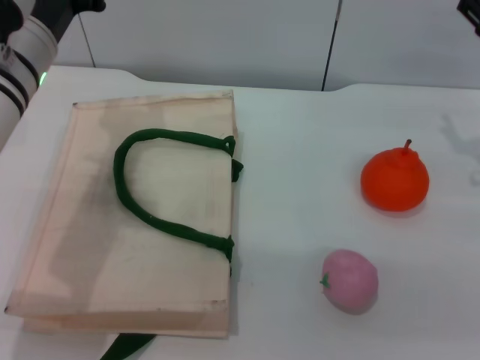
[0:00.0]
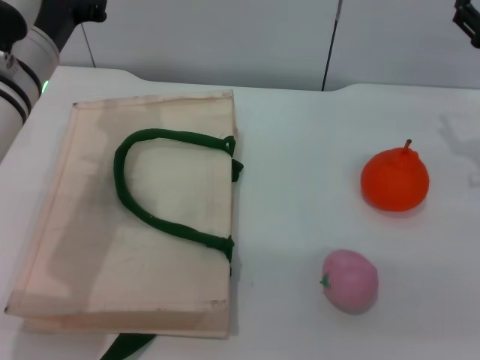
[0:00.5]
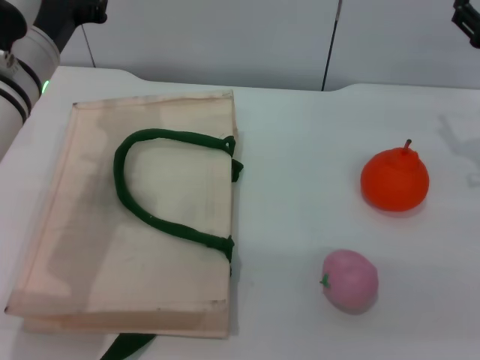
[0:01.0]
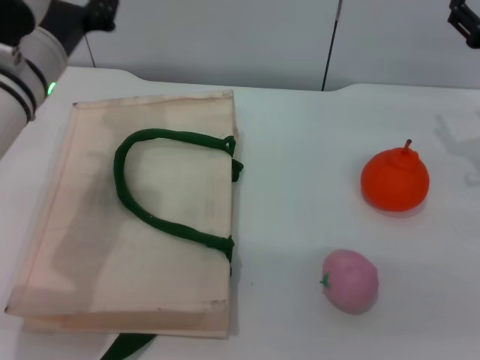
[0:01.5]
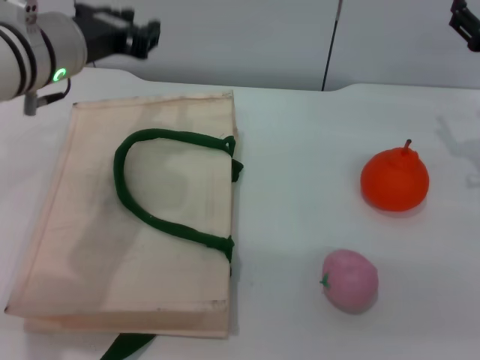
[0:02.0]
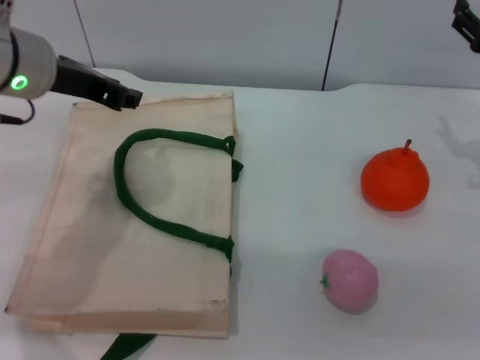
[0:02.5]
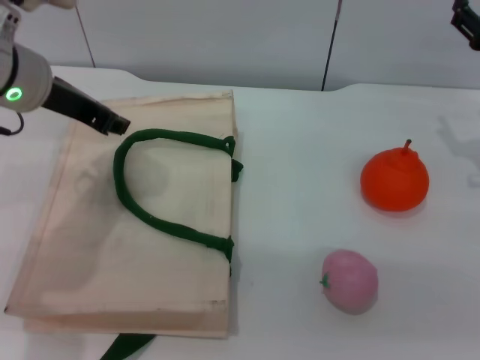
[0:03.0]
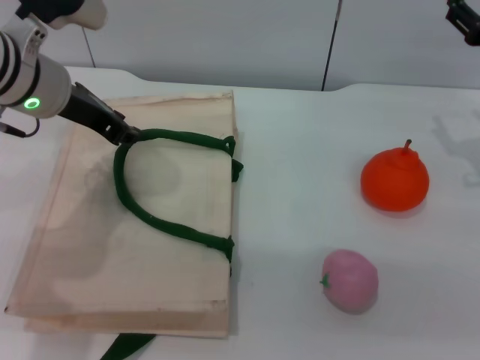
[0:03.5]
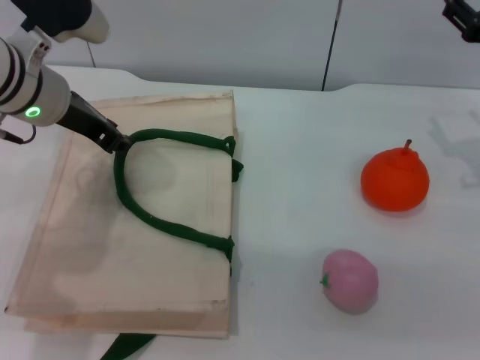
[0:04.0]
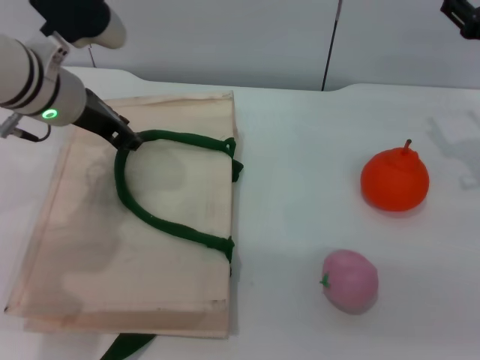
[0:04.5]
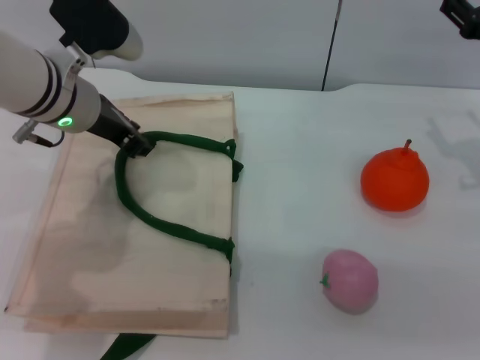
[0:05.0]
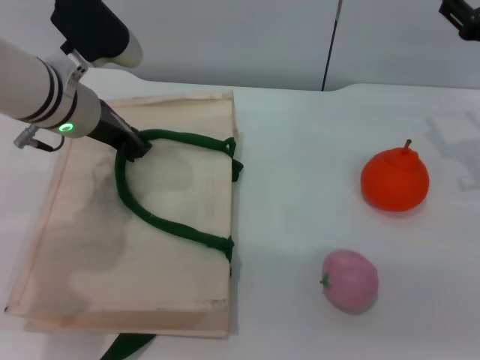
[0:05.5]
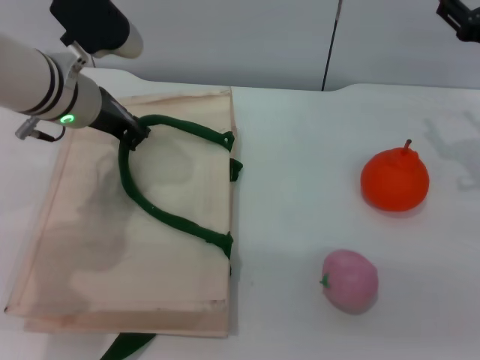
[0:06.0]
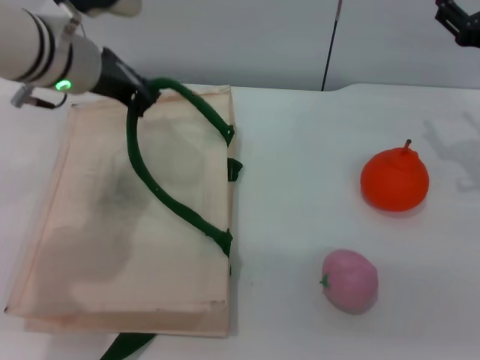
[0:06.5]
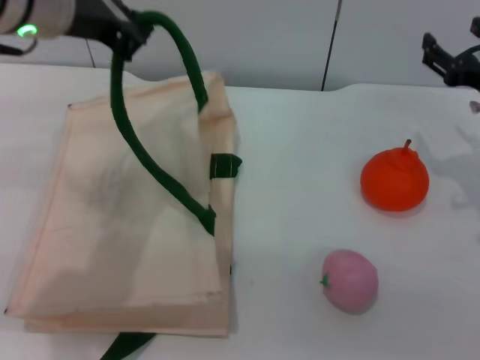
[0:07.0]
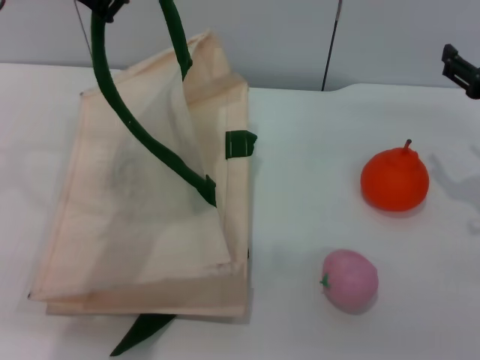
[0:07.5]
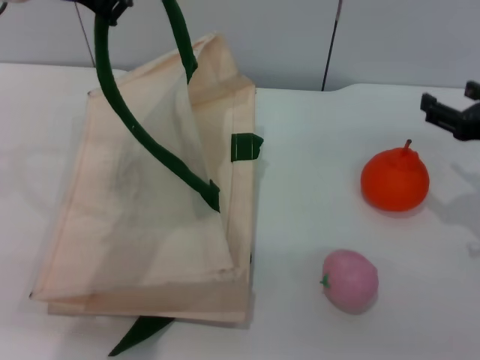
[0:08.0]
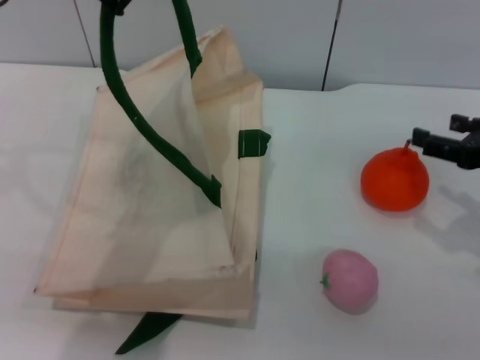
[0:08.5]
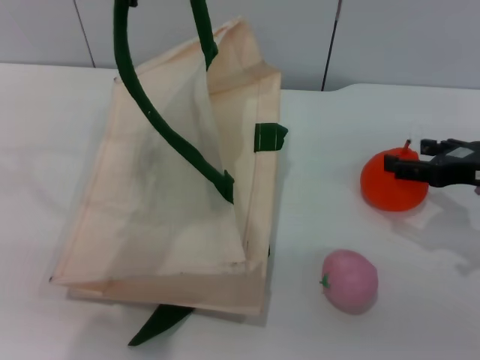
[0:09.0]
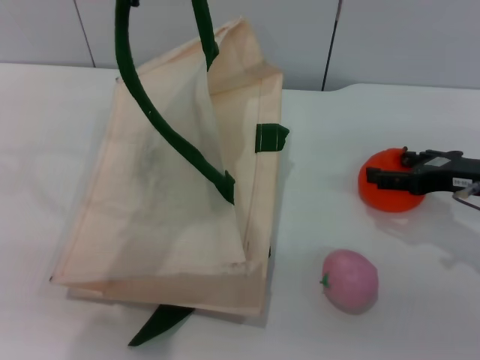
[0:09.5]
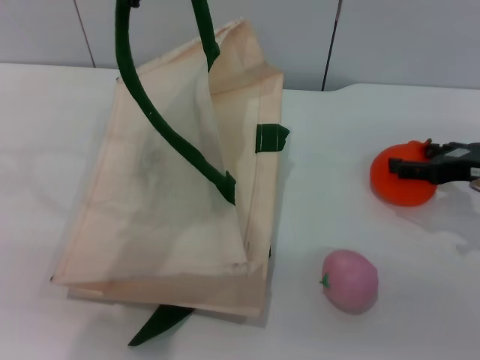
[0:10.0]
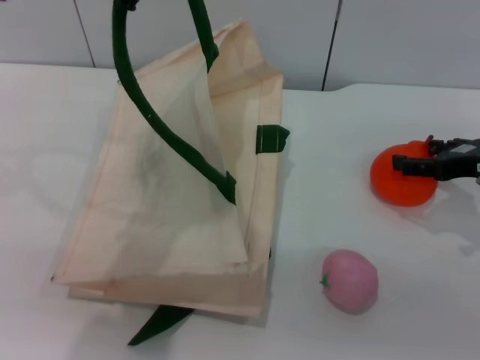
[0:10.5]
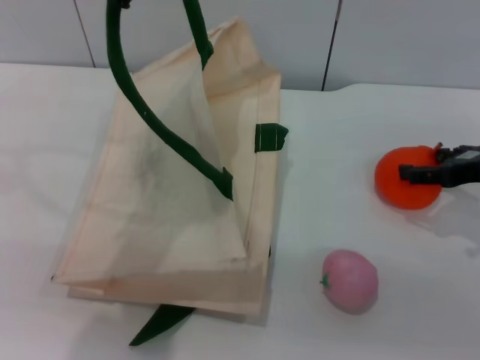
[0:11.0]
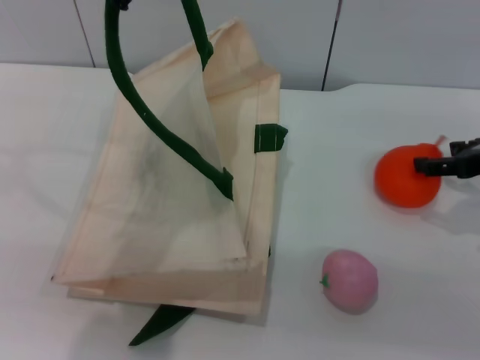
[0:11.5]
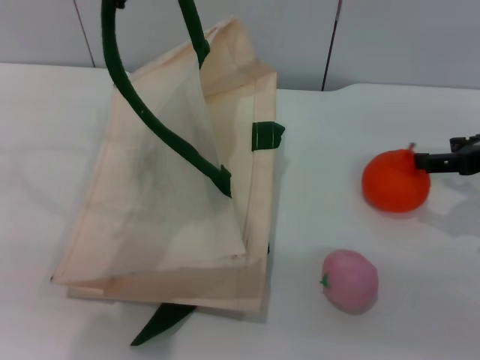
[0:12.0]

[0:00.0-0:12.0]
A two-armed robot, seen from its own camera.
Task of the whole recording: pick up the orange and peach from the table and place it in the white handbag.
Step, 0:00.0 to 0:07.5: Lift the woven bag with the left gripper to open it.
0:04.0 to 0:06.0: There are only small adjustments of the grippers.
0:06.0 to 0:08.0: The right gripper heads backward, covering about 10 cm; the left gripper heads upward and backward, covering approximately 20 cm.
0:10.0 to 0:12.0: The grippers stay close to where they were, moving slightly.

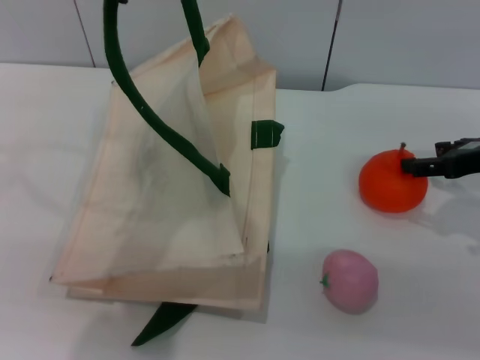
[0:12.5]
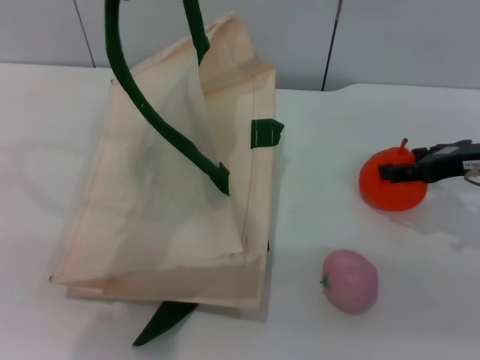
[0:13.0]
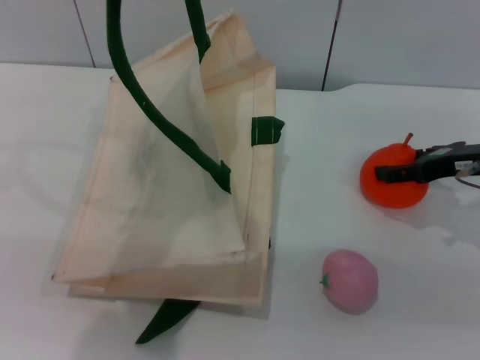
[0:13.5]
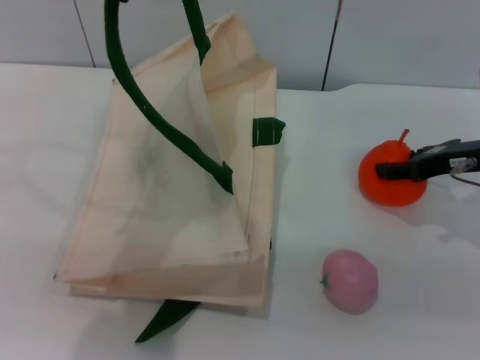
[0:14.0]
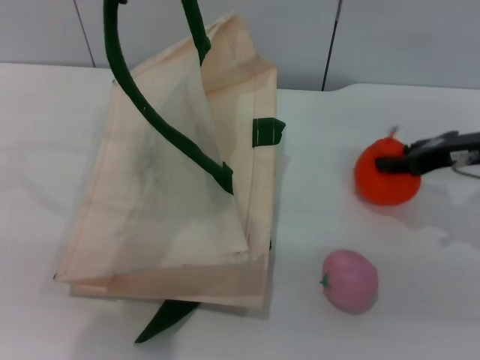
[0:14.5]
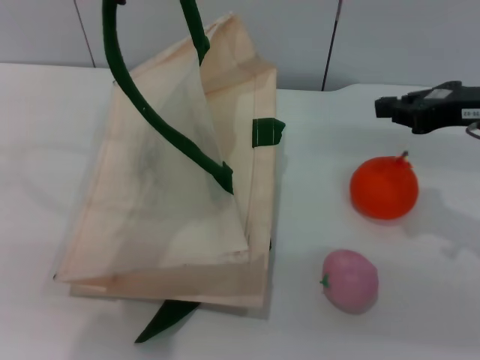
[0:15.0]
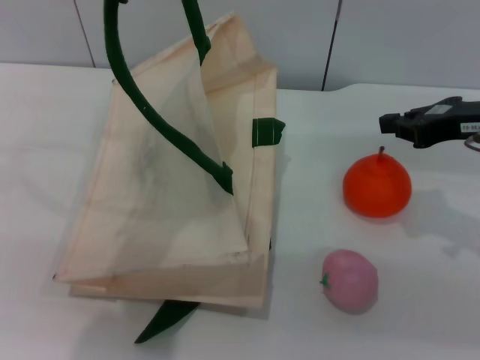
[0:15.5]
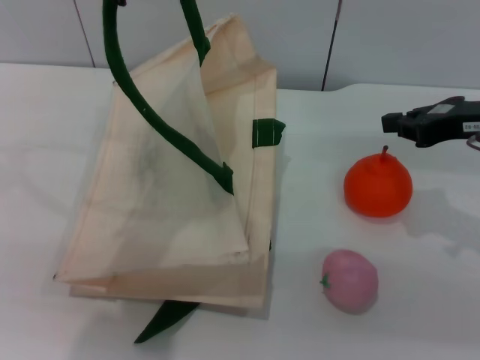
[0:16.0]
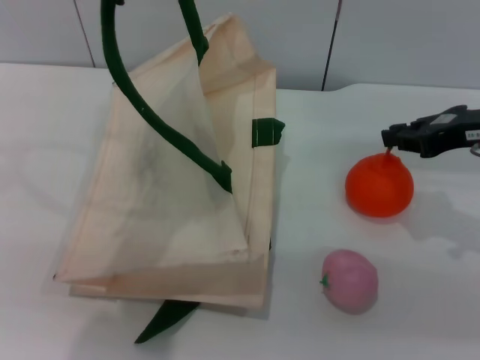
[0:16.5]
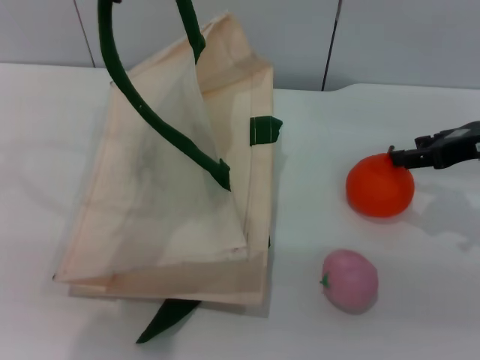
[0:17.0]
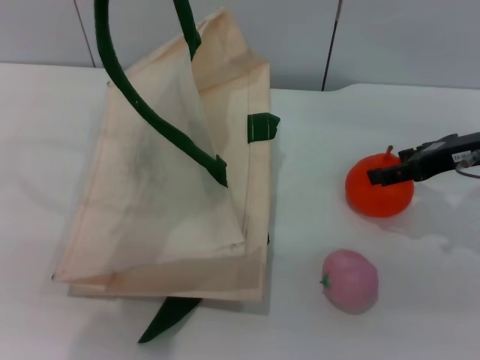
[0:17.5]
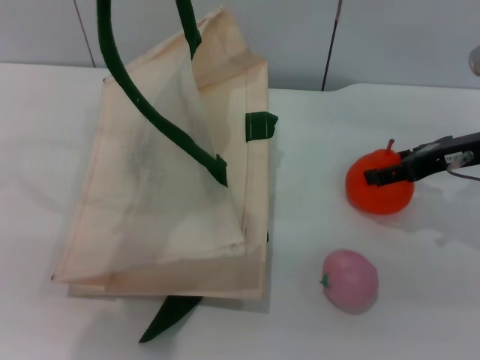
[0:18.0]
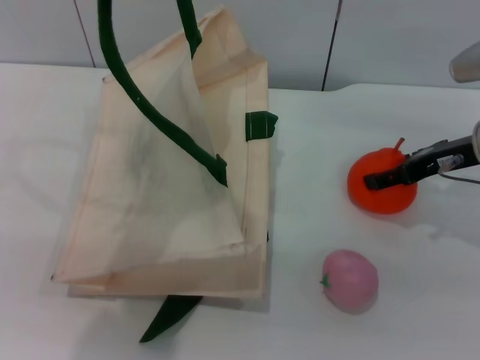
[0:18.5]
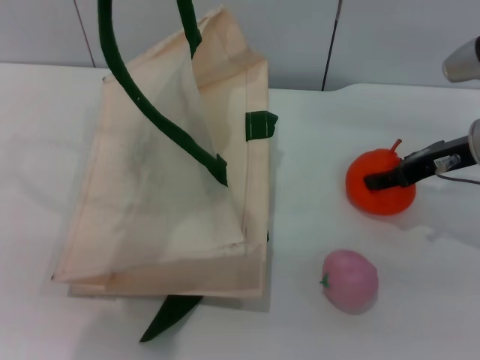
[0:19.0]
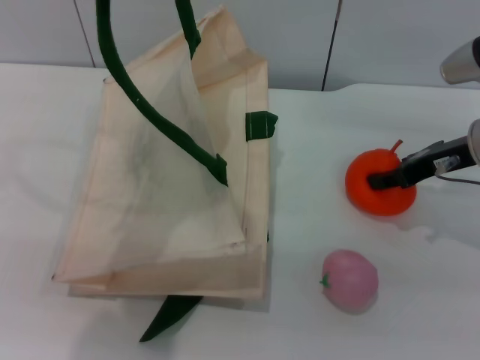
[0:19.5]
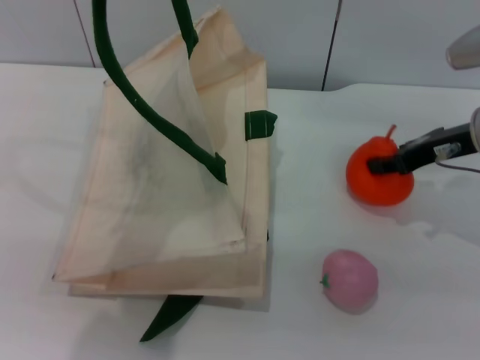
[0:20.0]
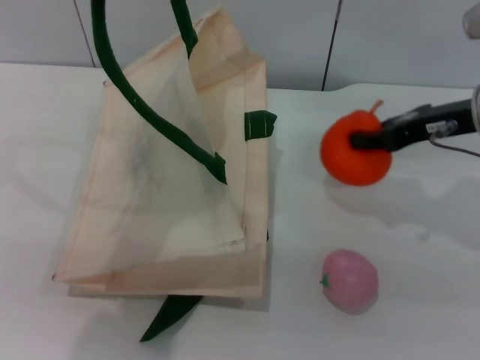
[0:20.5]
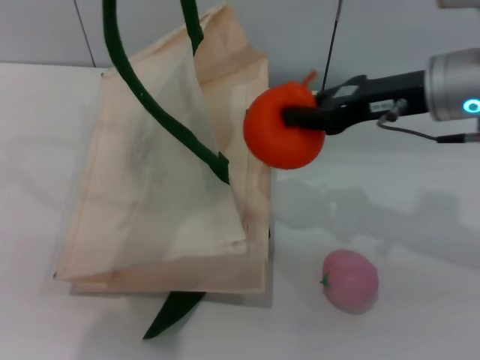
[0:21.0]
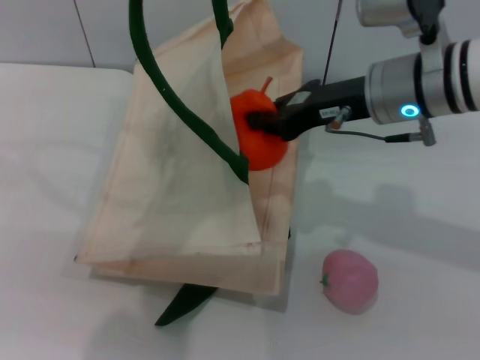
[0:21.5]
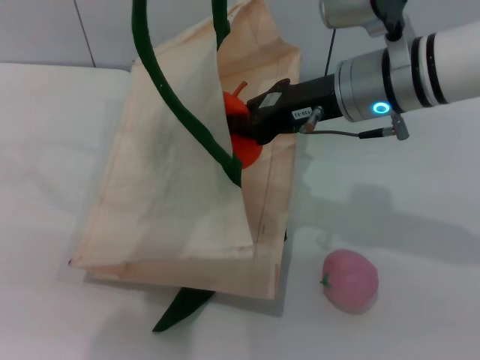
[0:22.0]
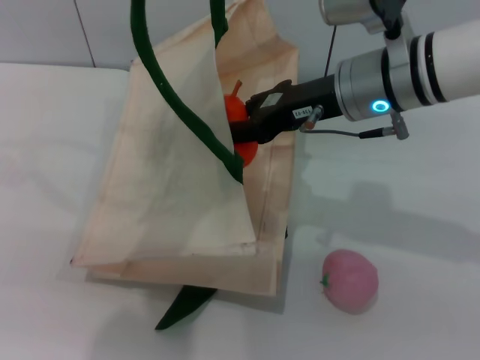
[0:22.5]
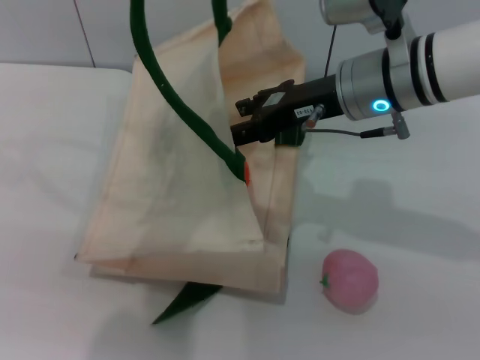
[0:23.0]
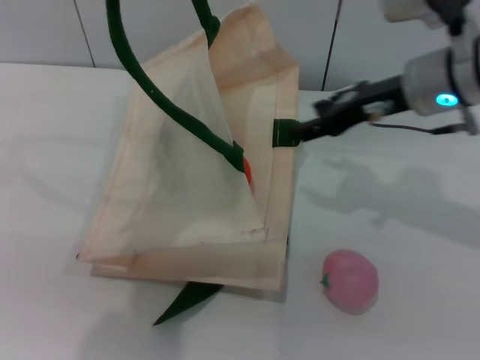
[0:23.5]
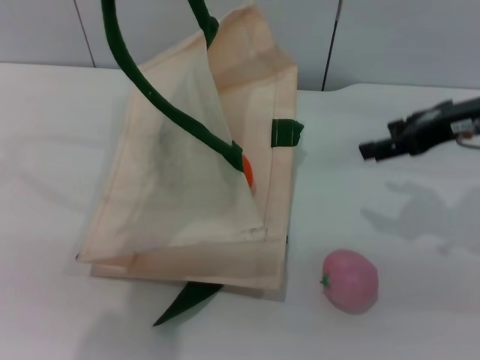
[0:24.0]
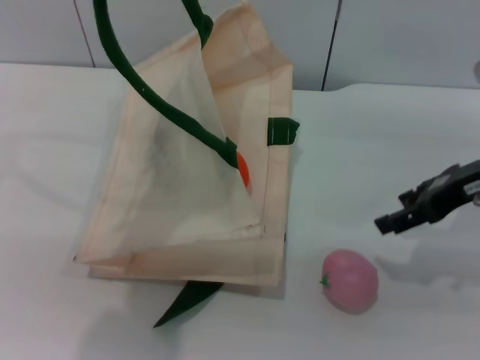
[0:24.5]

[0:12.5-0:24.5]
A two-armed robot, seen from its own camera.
Task of the whole recording: pick up the orange and peach from the table and place it in the white handbag.
Step, 0:12.5 to 0:20.0: Pick up the orange with the right gripper.
Step, 0:20.5 to 0:23.0: Place the orange into the woven bag with the right gripper.
0:12.5 to 0:14.5: The right gripper closes.
0:14.5 to 0:16.5: The right gripper closes its fingers.
0:16.5 to 0:18.5: The right gripper changes place by about 5 cm, and opens.
0:18.5 to 0:20.5: The right gripper closes.
0:20.5 to 0:22.5: The right gripper moves to the left, approximately 10 cm.
0:22.5 to 0:24.5: The right gripper goes approximately 15 cm to the right, and opens.

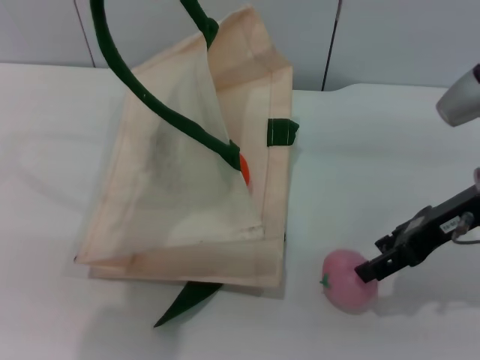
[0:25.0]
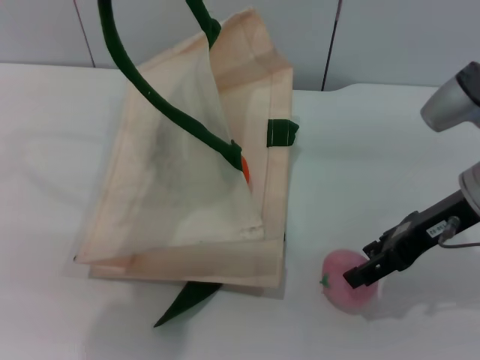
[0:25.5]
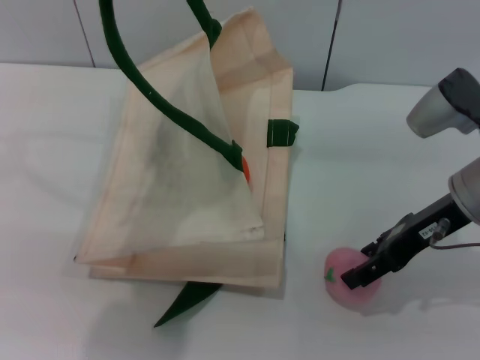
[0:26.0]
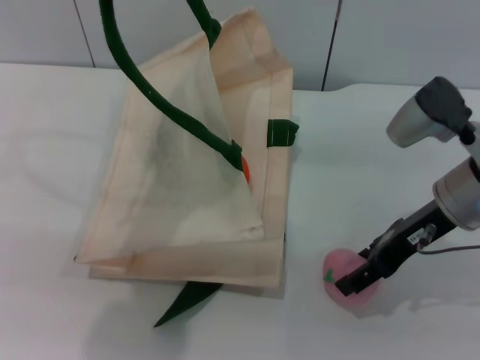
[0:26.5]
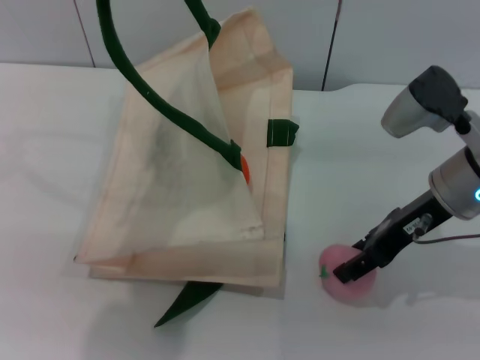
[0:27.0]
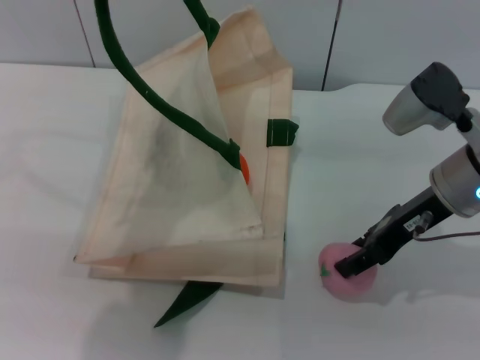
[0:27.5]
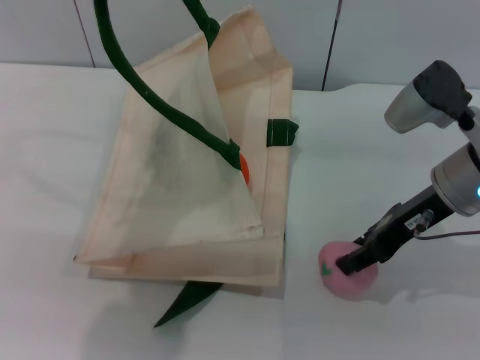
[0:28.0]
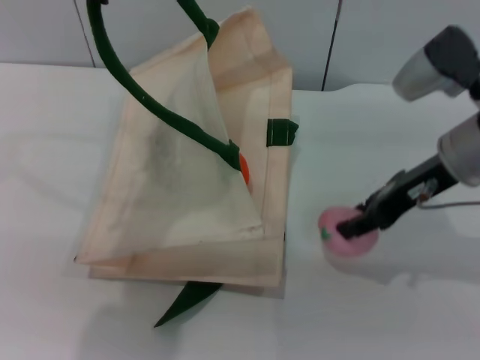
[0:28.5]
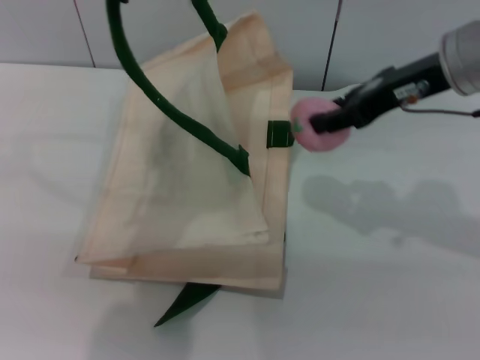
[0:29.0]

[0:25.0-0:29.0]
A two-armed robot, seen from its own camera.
Task of the whole recording: pick up the orange and peach from the table and place it in the white handbag.
Step, 0:25.0 to 0:28.5: Pick up the peach with the right gripper.
0:25.0 to 0:27.0: The grippers make only small movements.
0:27.0 to 0:29.0: The right gripper heads upward, covering some 10 cm.
